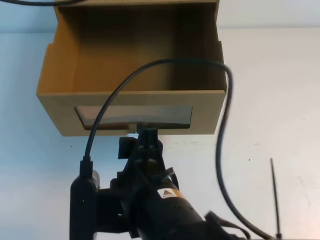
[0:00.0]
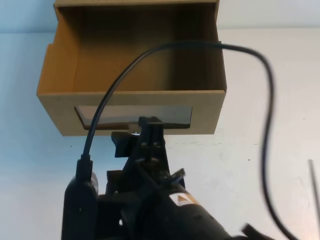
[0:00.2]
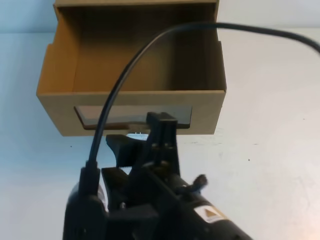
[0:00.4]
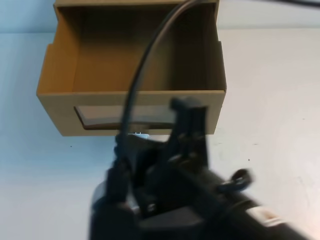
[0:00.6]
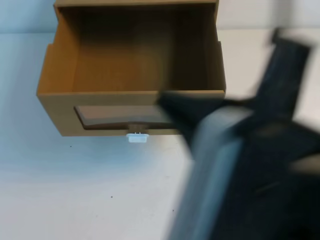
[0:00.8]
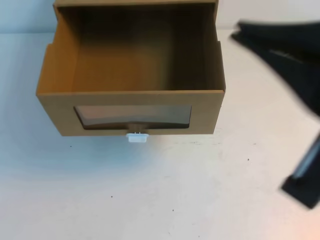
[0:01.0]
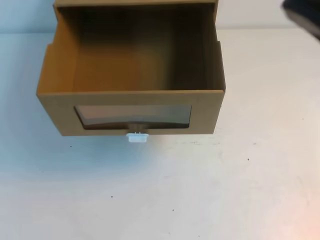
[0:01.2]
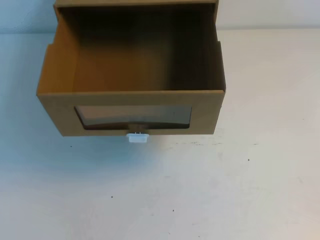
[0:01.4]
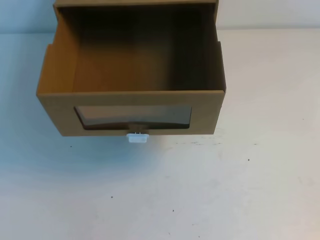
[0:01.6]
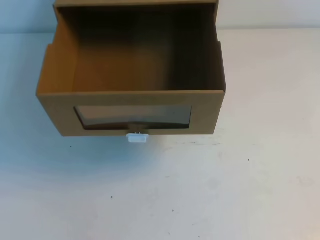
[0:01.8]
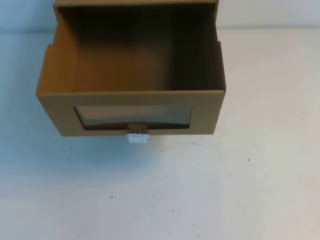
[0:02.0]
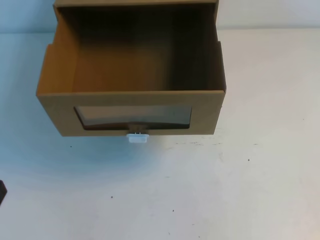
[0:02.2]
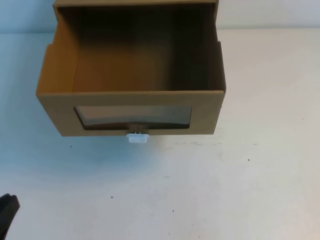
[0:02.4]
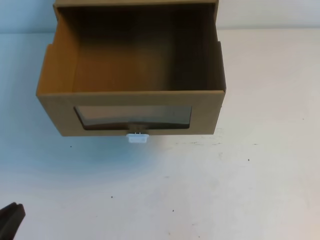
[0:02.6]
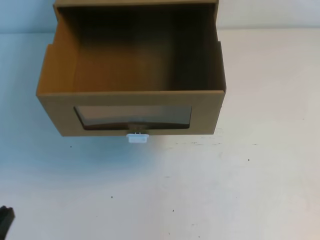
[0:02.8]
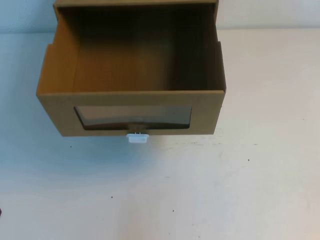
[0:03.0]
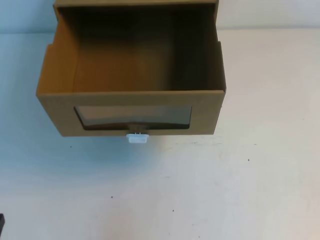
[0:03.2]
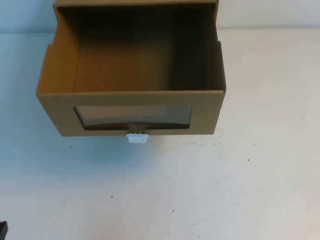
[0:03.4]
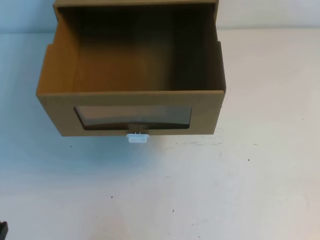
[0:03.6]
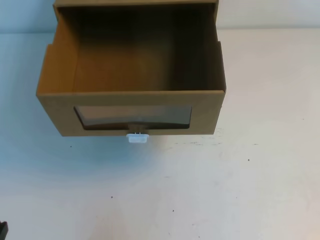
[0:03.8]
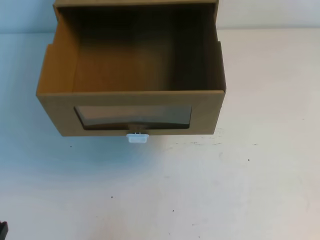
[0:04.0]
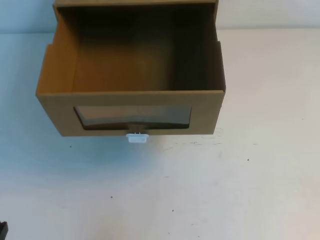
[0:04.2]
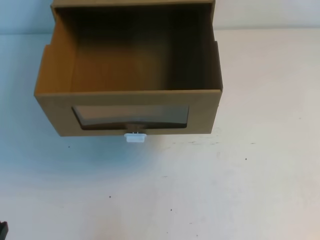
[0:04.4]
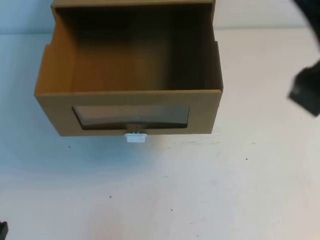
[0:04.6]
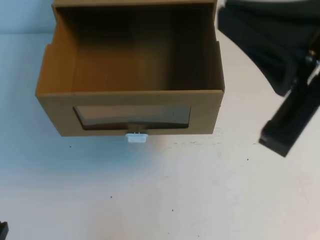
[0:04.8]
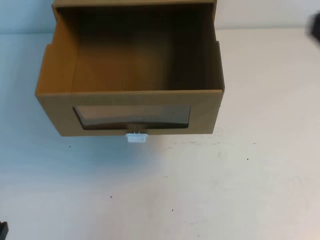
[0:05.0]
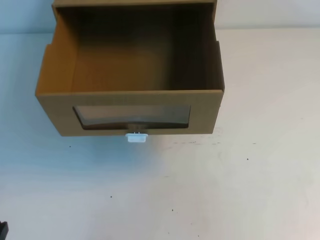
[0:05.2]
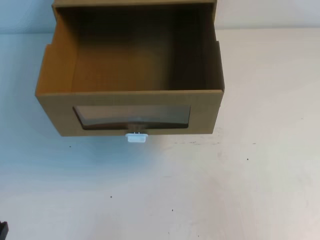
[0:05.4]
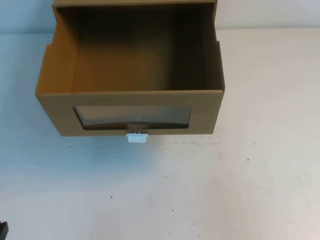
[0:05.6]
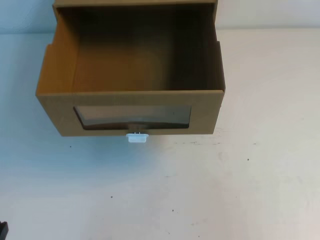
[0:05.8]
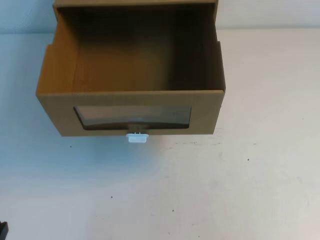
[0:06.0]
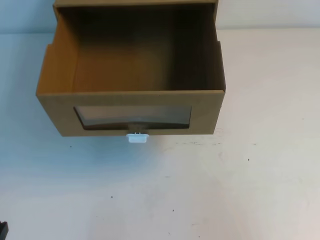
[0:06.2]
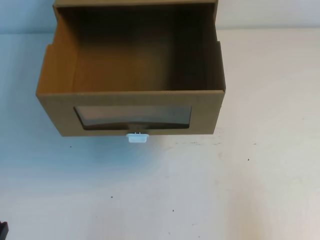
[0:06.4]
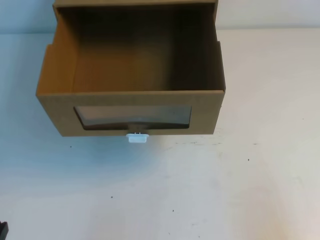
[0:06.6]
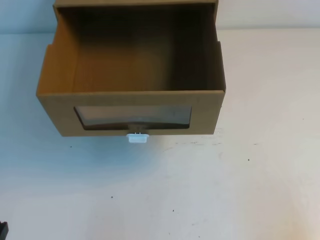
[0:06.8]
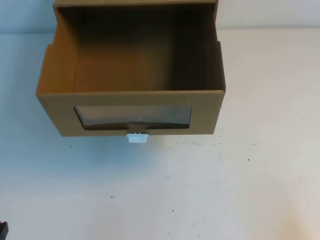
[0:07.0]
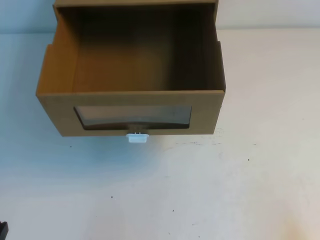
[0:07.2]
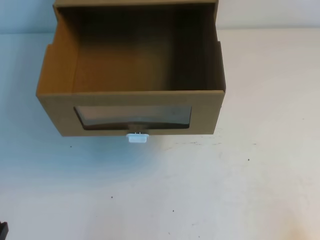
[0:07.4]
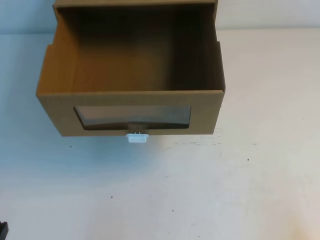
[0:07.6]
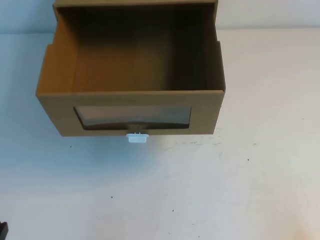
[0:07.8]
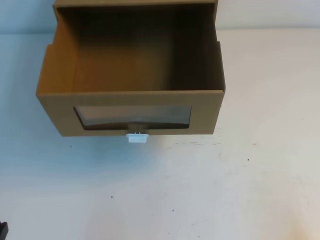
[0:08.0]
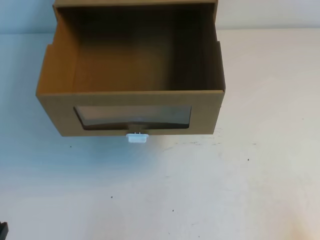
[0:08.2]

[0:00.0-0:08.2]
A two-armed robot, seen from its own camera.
Task of the whole recording: open the shoebox on the table.
Step, 0:00.0 to 0:08.2: Open the shoe box.
0:00.0 to 0:01.6: The left gripper moves backward, roughly 40 cm; the right gripper goes approximately 30 cm to the right and upward, and closes up.
0:03.2 to 0:05.0: The right gripper goes roughly 5 cm downward.
0:05.0 to 0:06.6: The right gripper travels downward, to the right and backward by some 20 cm.
